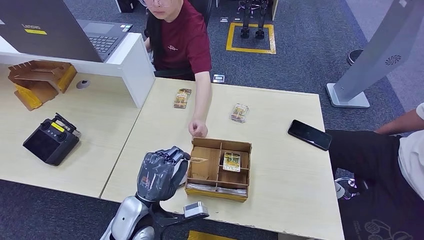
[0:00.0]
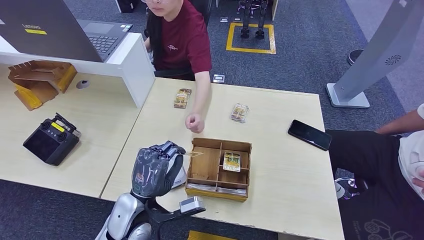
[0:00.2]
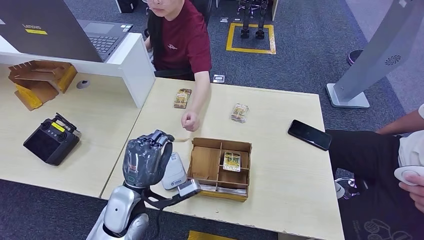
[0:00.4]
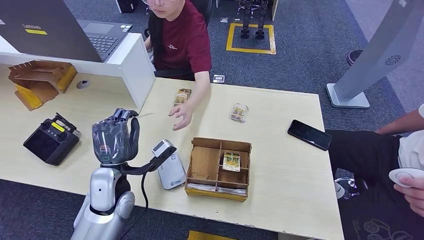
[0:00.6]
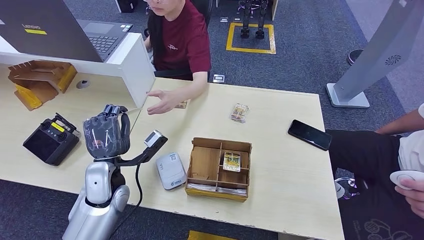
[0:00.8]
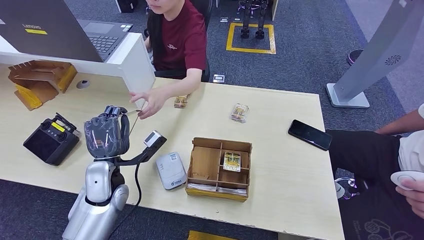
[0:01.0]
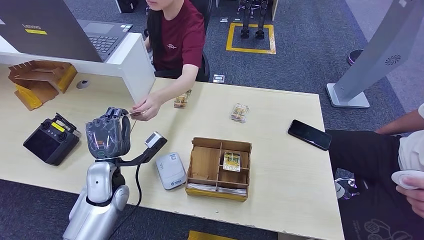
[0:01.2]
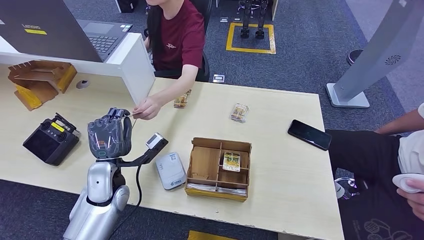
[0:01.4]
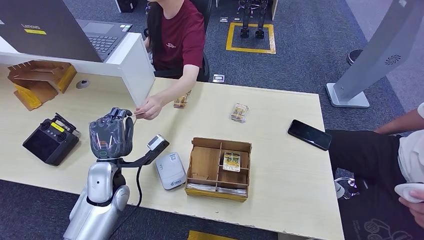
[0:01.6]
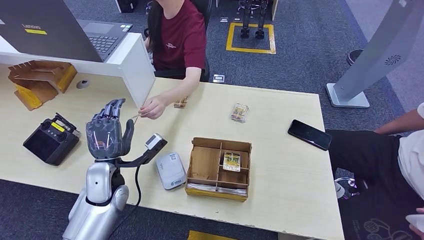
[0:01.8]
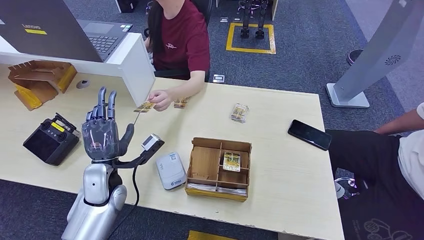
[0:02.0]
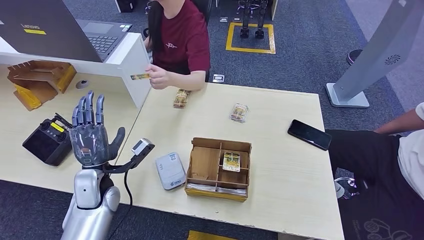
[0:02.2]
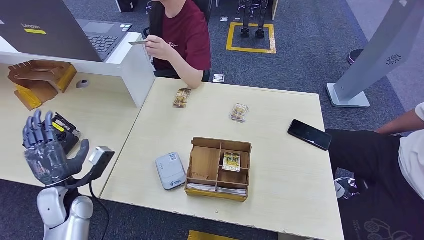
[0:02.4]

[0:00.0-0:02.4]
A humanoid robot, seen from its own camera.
Step, 0:01.0 to 0:02.4: Hand the room key to the person.
0:00.0 to 0:01.2: The left hand goes about 10 cm to the left and forward.
0:01.2 to 0:02.4: The left hand travels to the left by approximately 10 cm.

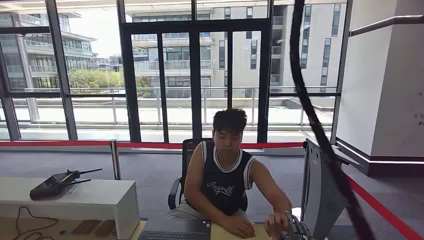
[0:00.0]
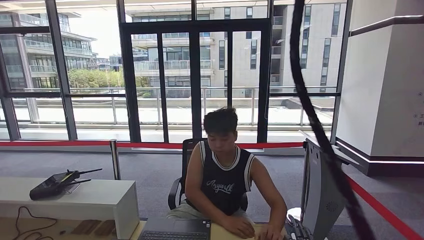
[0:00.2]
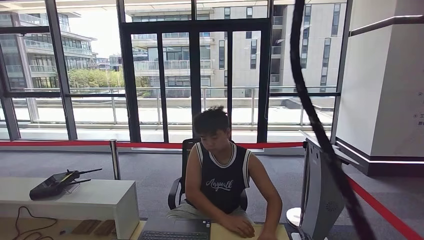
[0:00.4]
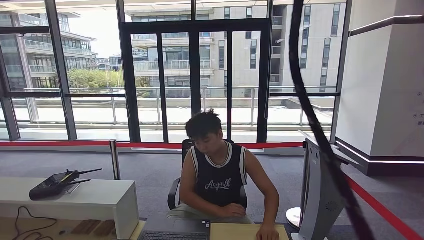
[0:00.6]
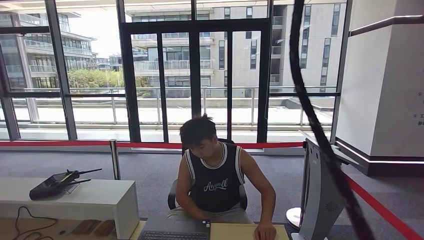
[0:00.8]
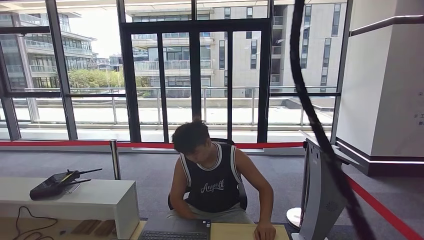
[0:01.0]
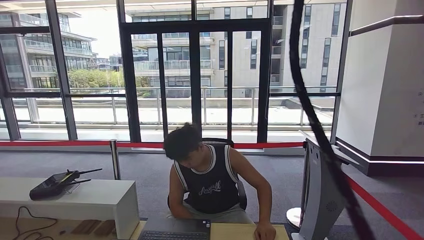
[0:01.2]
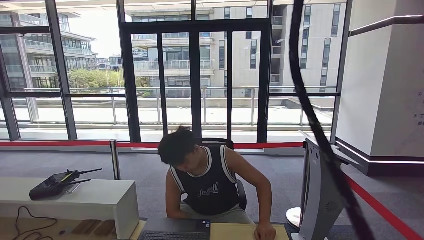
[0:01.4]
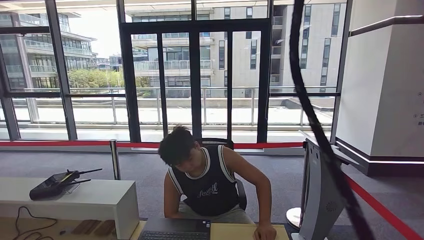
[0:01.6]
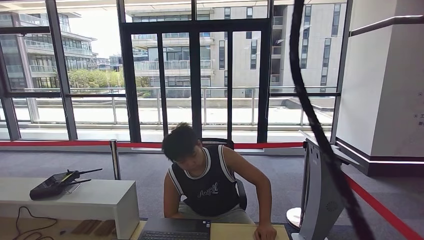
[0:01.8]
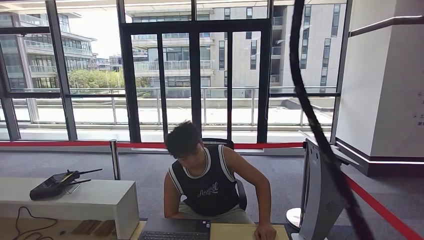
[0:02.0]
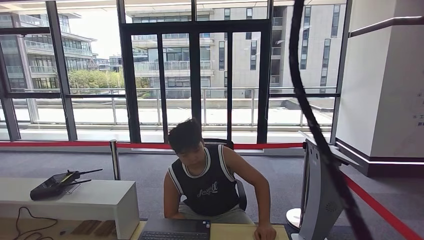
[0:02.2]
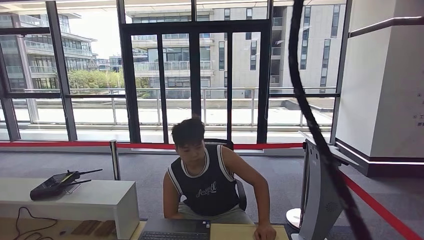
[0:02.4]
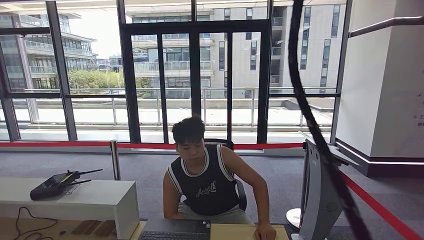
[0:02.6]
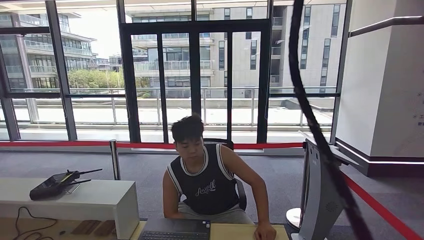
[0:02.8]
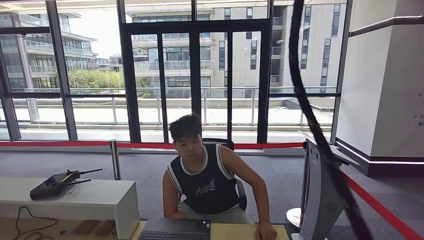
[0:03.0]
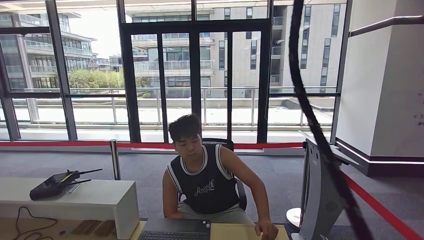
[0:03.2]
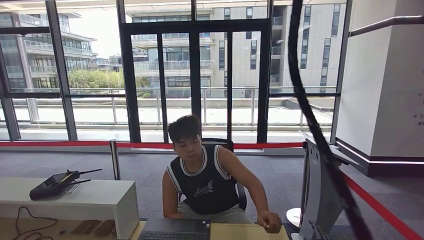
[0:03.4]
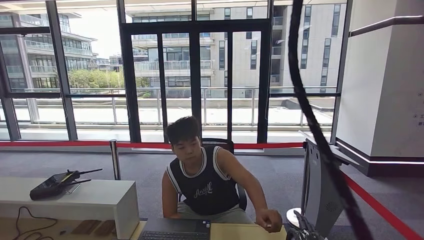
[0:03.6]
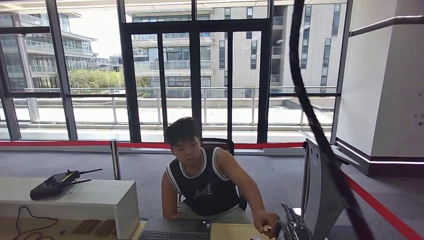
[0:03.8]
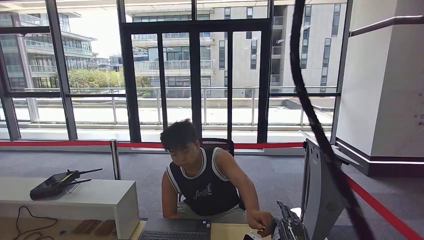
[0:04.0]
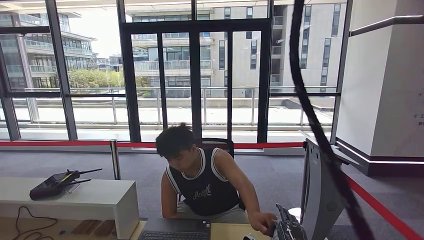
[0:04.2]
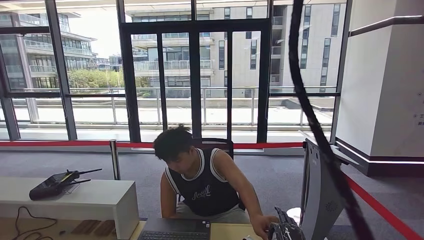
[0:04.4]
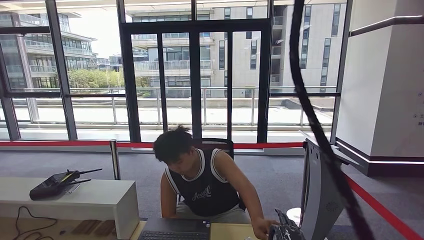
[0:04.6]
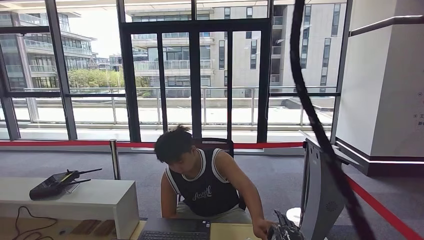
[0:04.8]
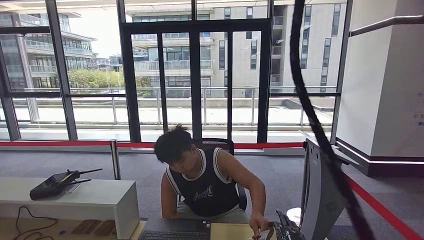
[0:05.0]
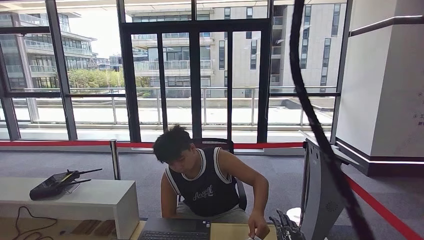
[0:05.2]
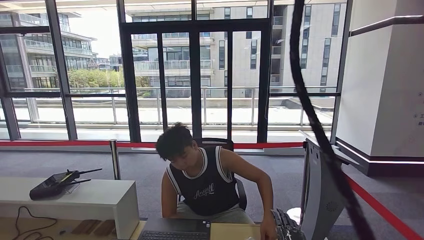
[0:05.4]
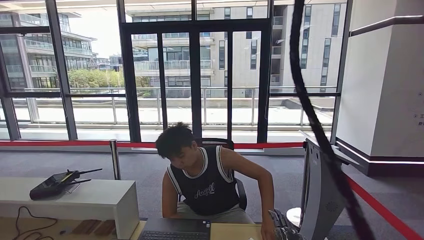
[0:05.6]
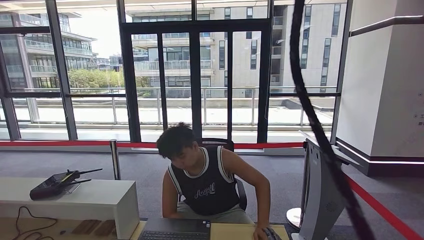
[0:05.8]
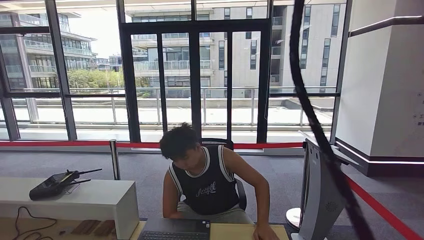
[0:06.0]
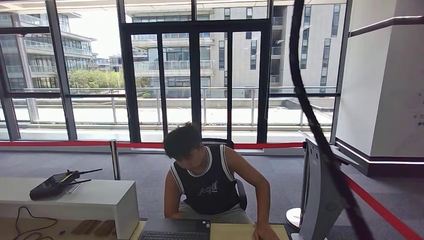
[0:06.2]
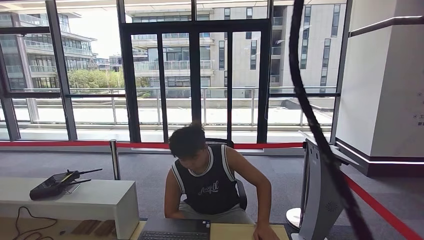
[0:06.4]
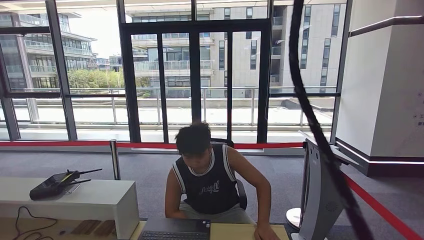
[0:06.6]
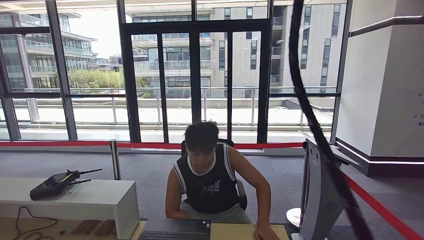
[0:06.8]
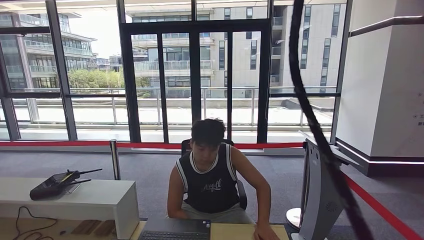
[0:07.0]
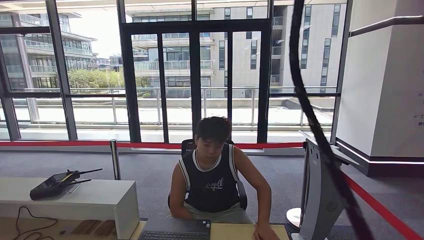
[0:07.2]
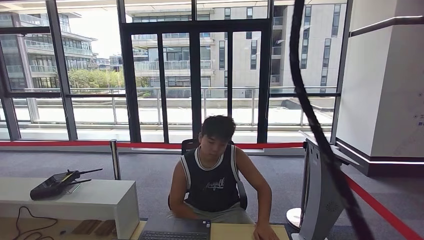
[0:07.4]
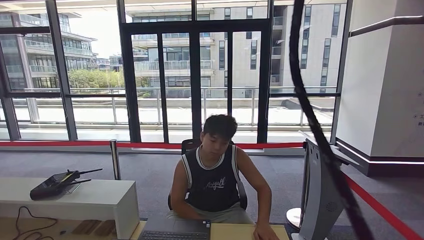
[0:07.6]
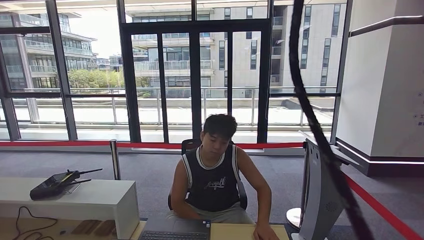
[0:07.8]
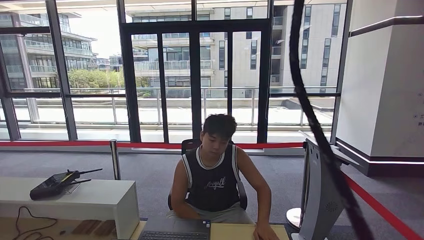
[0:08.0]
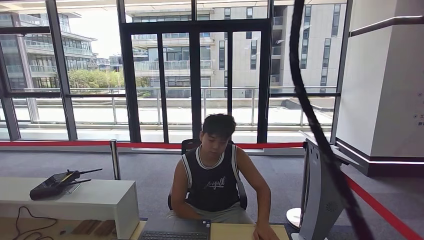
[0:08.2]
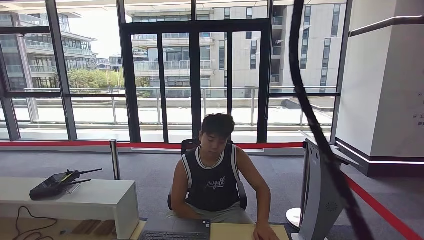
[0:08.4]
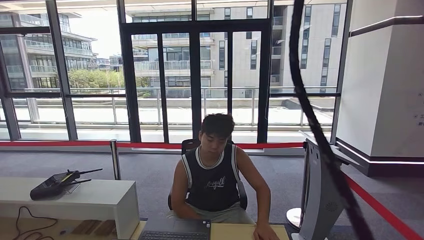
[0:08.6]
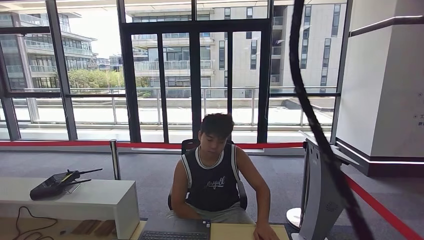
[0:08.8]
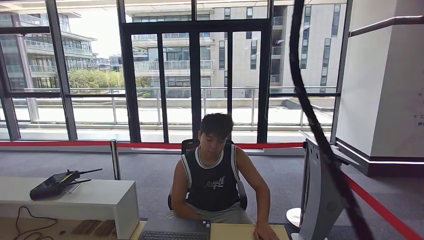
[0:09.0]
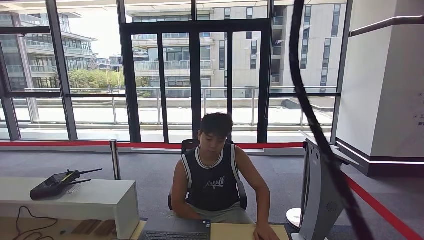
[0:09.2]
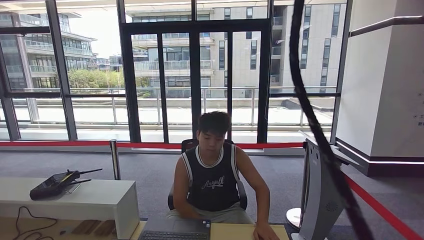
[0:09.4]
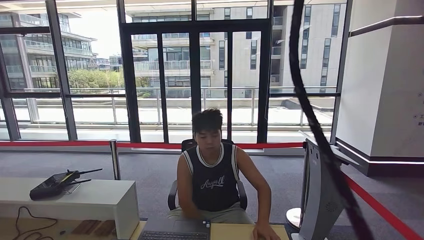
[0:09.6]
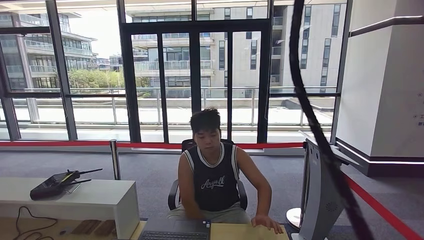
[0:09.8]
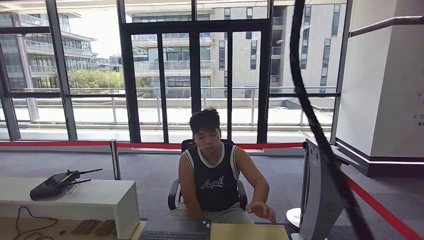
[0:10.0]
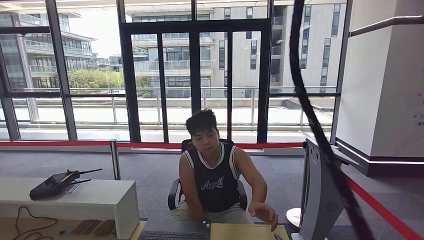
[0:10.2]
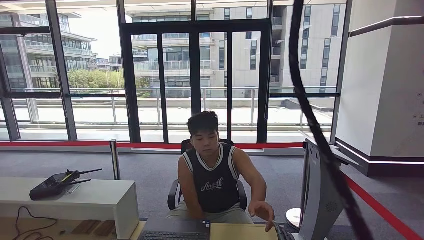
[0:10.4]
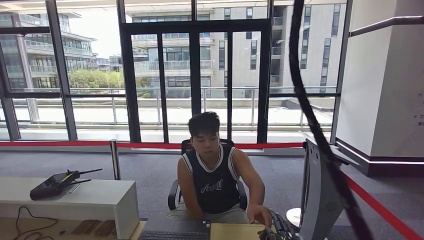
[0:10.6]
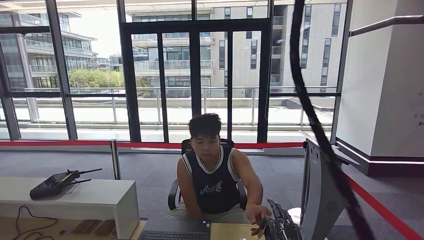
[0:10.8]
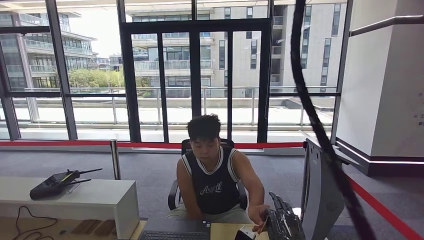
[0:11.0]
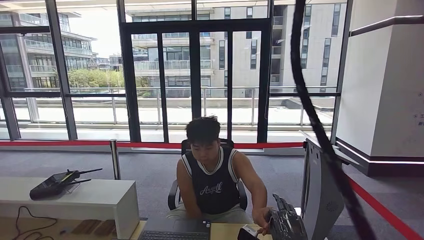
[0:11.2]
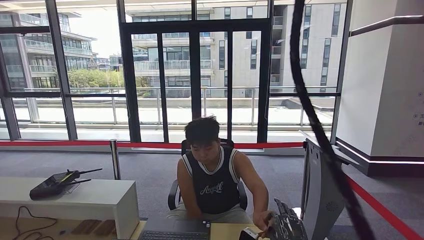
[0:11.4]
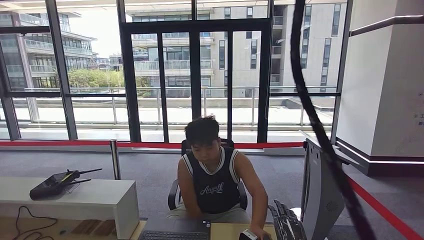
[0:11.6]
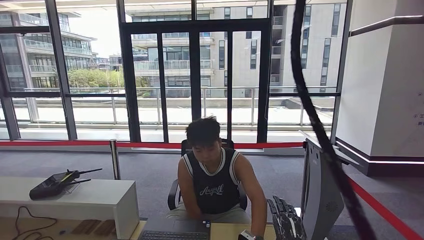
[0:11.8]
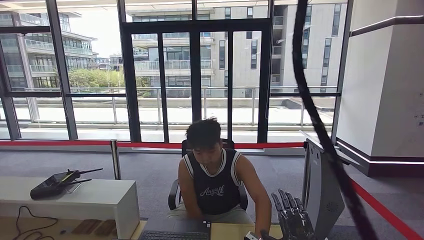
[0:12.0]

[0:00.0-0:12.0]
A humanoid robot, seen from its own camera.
Step, 0:00.0 to 0:01.0: Take the ID card from the person's hand.
Step, 0:01.2 to 0:03.6: Place the ID card on the card reader.
Step, 0:03.8 to 0:06.2: Hand the ID card to the person.
Step, 0:06.6 to 0:09.2: Pick up the room key from the key card box.
0:01.6 to 0:03.0: The right hand moves roughly 5 cm.
0:03.0 to 0:04.4: The right hand travels upward, to the left and forward by about 15 cm.
0:04.4 to 0:06.0: The right hand travels downward and backward by approximately 10 cm.
0:06.0 to 0:07.6: The right hand moves downward and backward, approximately 10 cm.
0:09.0 to 0:10.4: The right hand travels upward by approximately 15 cm.
0:10.4 to 0:12.0: The right hand is displaced forward and upward by approximately 10 cm.

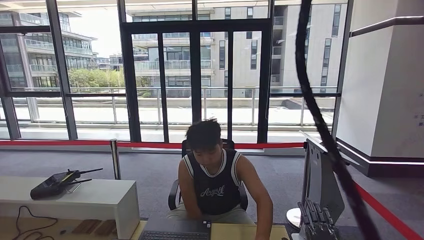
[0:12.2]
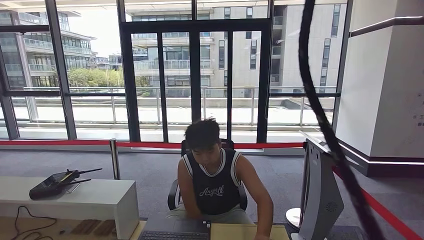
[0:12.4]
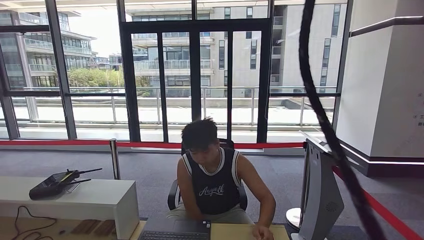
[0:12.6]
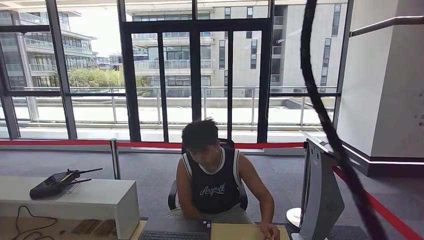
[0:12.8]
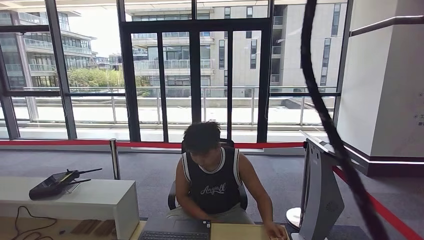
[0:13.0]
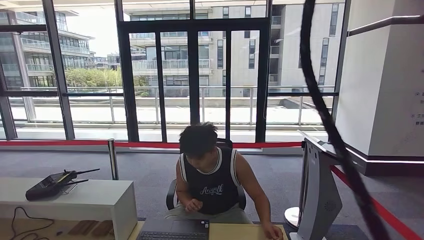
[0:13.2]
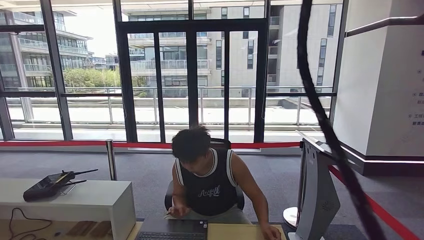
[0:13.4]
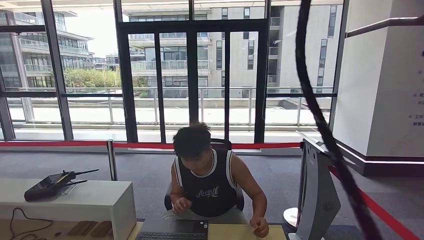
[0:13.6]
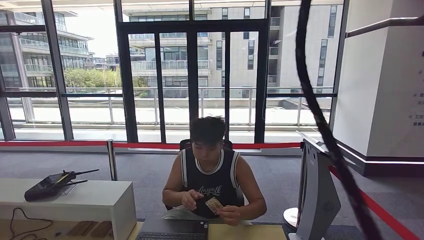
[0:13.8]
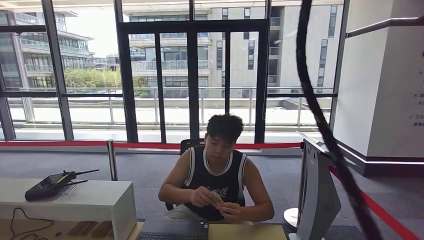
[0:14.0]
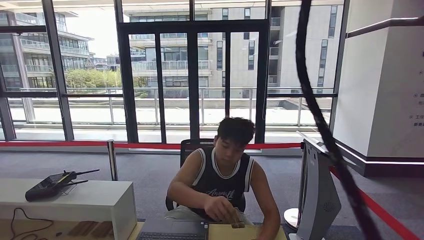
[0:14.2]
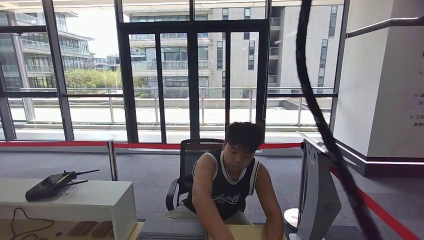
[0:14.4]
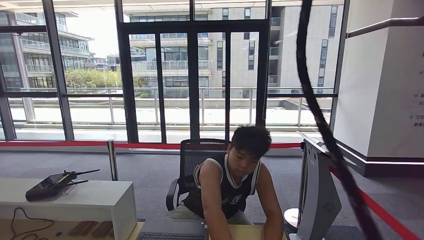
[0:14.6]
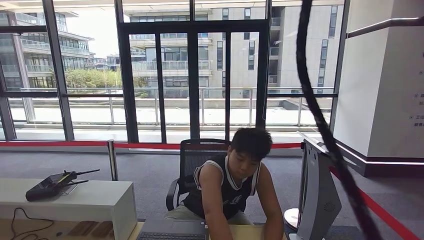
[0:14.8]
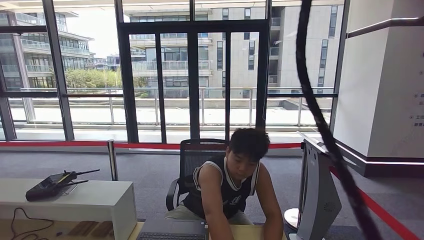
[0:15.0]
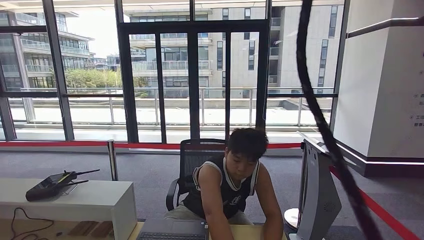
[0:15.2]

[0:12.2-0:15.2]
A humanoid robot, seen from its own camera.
Step, 0:12.2 to 0:15.2: Hand the room key to the person.
0:13.8 to 0:15.2: The right hand heads to the left, covering some 5 cm.
